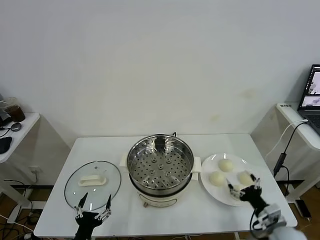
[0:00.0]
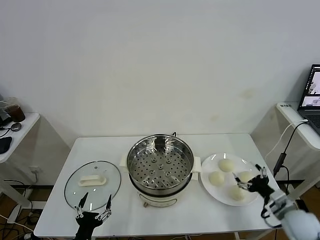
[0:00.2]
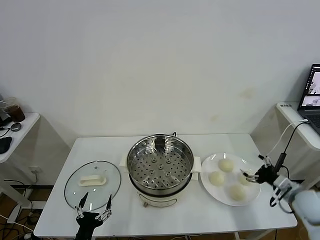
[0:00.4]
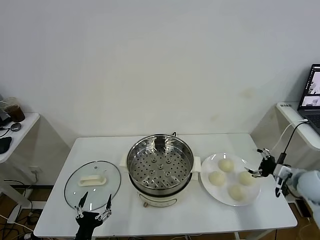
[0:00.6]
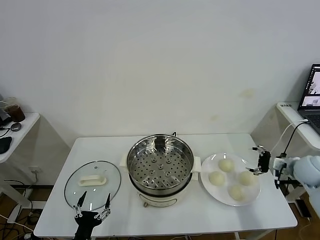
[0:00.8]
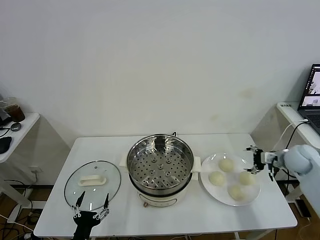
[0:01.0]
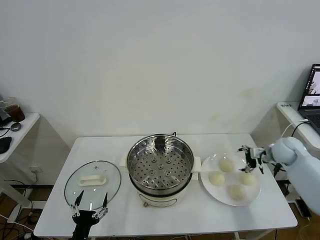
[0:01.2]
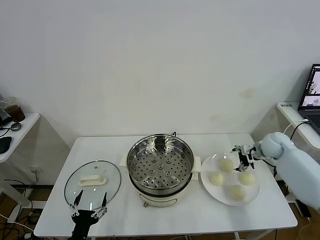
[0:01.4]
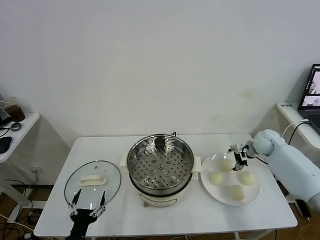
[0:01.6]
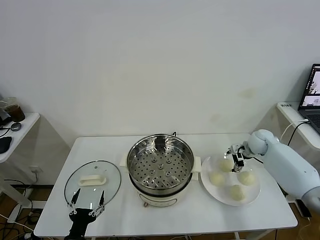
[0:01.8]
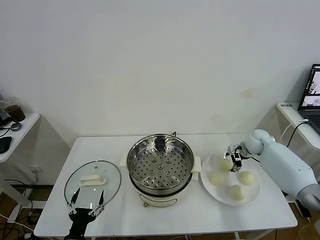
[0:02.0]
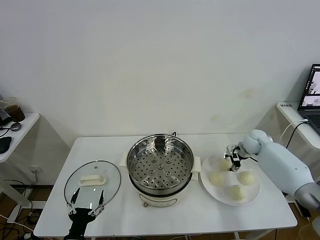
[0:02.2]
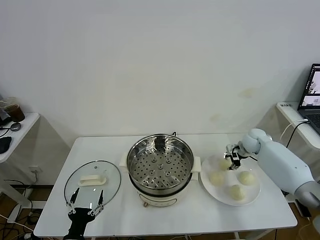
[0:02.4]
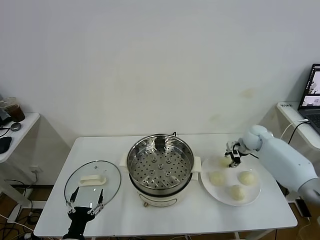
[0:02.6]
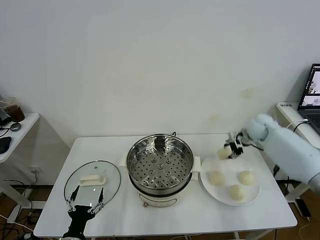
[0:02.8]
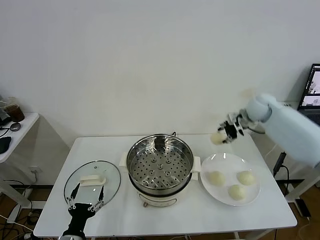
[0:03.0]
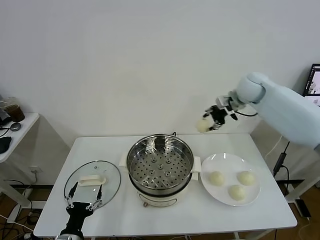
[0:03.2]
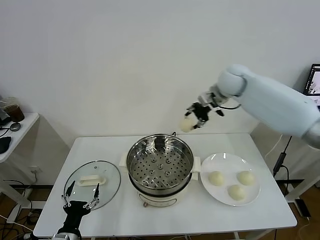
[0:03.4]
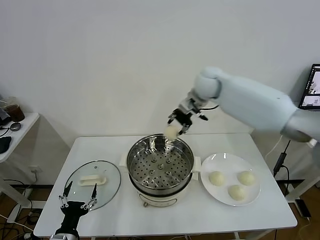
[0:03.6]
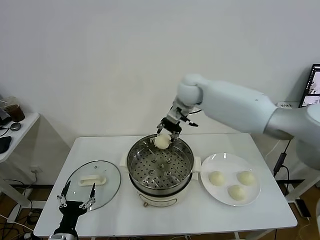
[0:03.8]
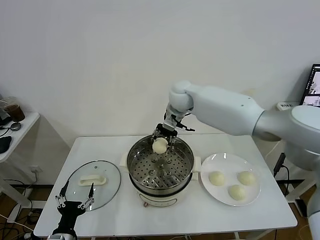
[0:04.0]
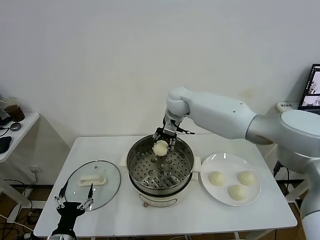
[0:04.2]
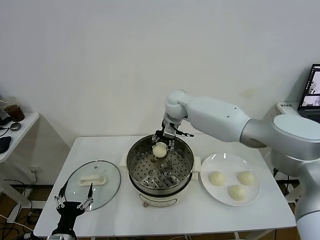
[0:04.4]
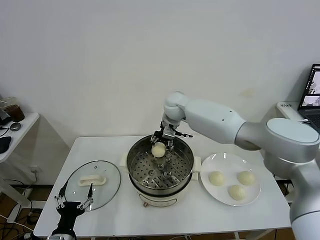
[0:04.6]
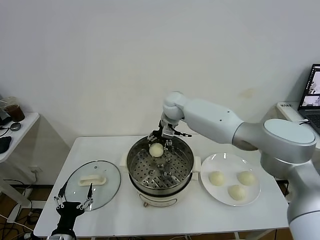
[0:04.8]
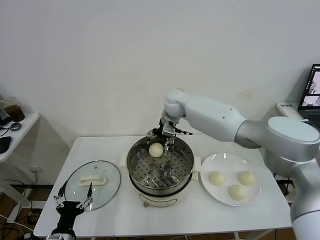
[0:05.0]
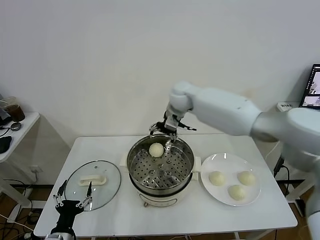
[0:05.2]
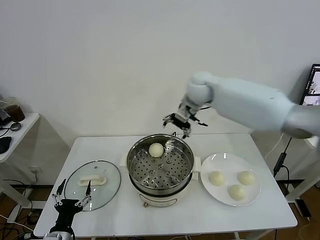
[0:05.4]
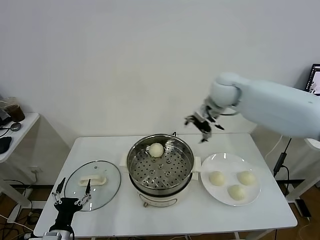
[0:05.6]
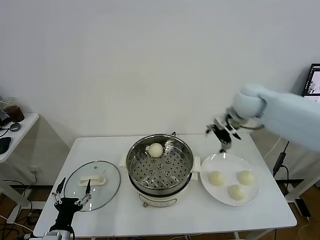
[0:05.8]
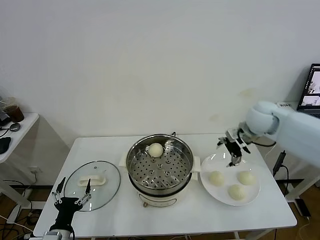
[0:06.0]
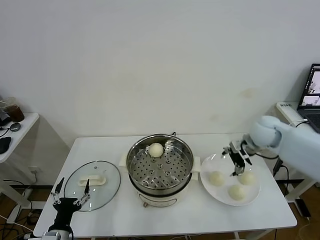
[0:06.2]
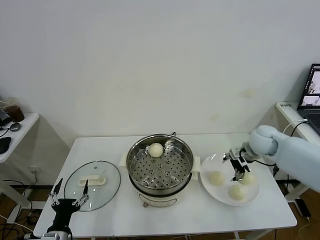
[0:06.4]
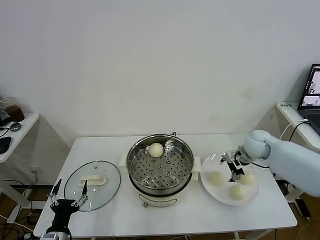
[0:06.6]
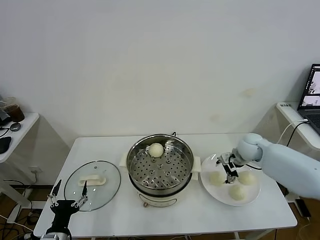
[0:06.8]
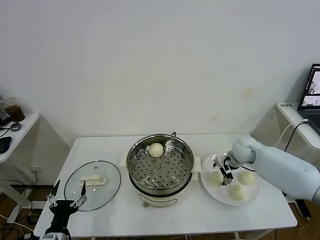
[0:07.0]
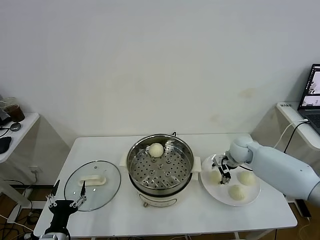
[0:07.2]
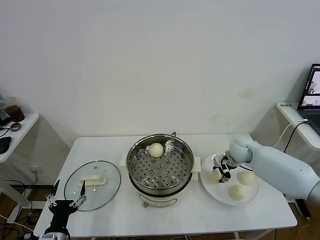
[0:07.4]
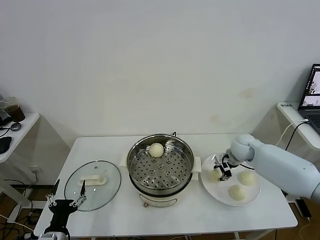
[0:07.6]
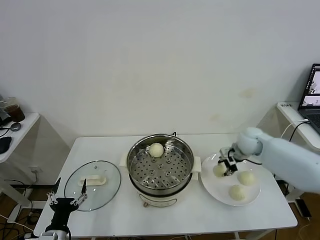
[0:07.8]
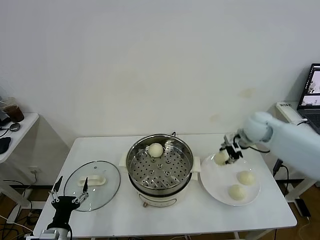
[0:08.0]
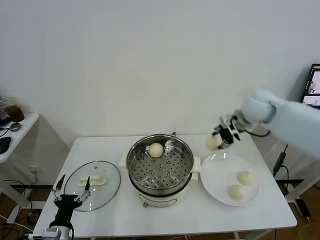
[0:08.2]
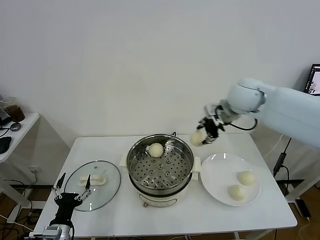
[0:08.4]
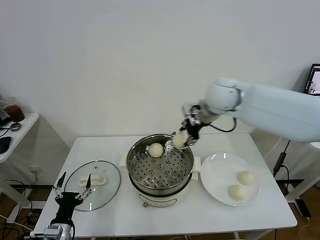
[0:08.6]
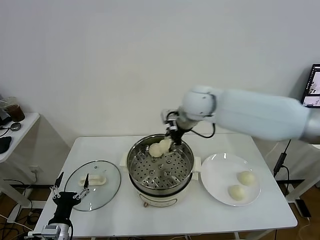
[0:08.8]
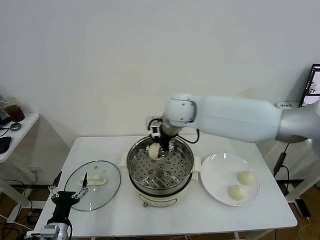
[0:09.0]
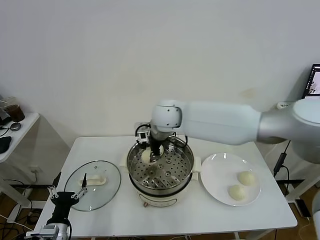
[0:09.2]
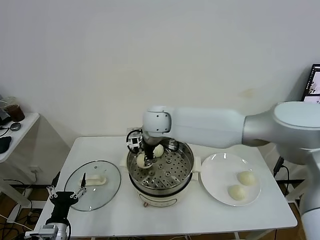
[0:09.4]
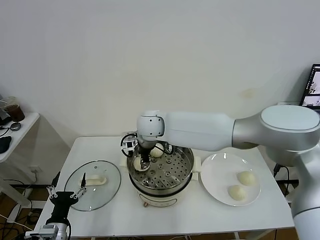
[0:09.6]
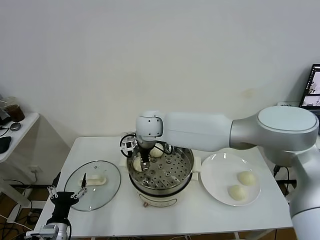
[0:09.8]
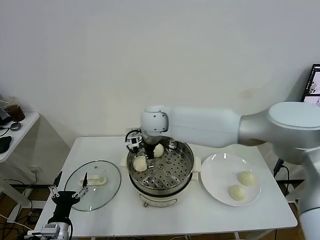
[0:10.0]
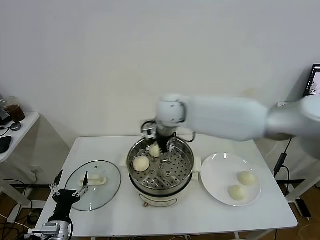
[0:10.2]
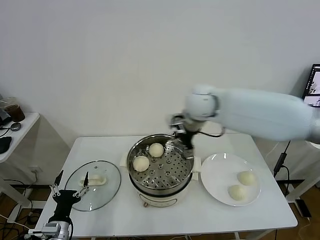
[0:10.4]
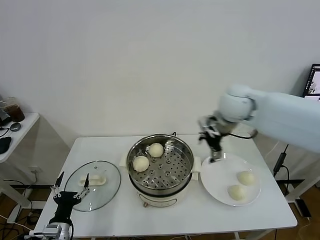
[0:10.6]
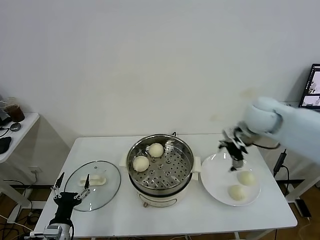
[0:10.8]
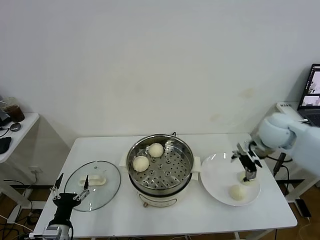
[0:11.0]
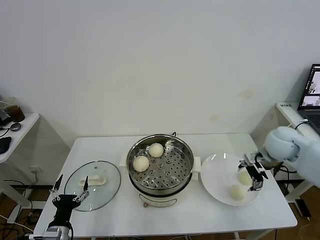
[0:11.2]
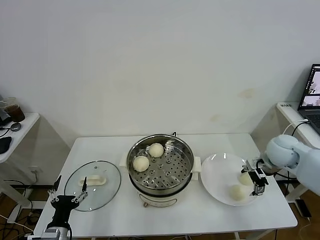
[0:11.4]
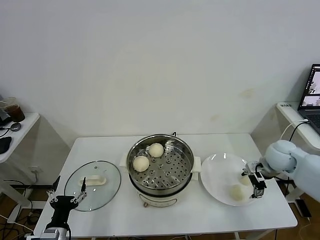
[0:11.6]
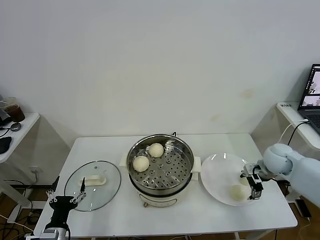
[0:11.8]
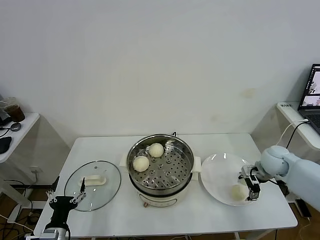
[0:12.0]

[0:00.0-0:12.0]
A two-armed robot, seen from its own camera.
Task of the whole recording: take steamed baozi put them in steamer.
Step, 0.0 to 2.4 s: Grasp the baozi in the plate with right gripper.
Step, 2.6 to 5.0 s: Place the baozi on the steamer with right gripper.
Step, 5.2 to 7.4 s: Grasp the baozi in the plate with right gripper.
Step, 7.6 to 9.8 s: Place the baozi on the steamer with right gripper.
1.6 to 3.0 s: The right gripper moves upward and to the left, approximately 20 cm, and closes up.
3.0 to 4.4 s: The right gripper shifts about 25 cm to the left.
4.4 to 6.0 s: The right gripper goes about 30 cm to the right, and opens its fingers.
6.0 to 7.6 s: The right gripper travels downward by some 10 cm, and closes its fingers.
7.6 to 9.0 s: The right gripper goes approximately 30 cm to the left and upward.
9.0 to 10.4 s: The right gripper travels to the right by about 15 cm, and opens.
10.4 to 12.0 s: The right gripper goes some 30 cm to the right and downward.

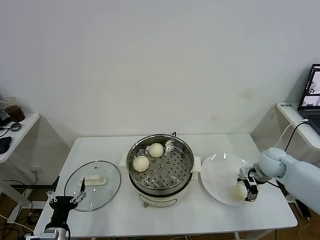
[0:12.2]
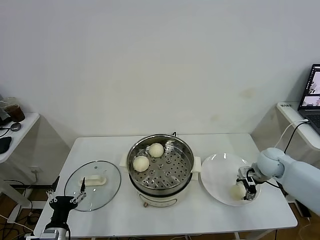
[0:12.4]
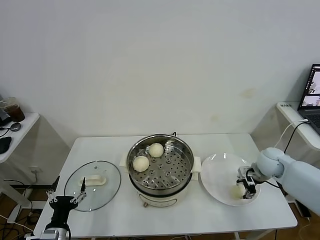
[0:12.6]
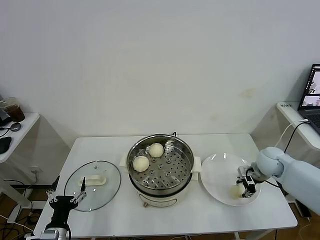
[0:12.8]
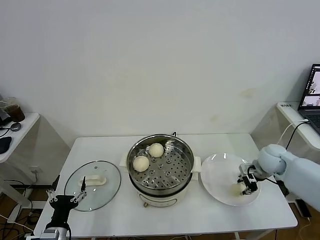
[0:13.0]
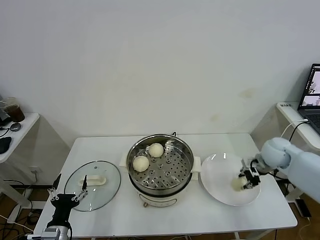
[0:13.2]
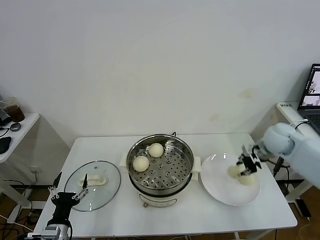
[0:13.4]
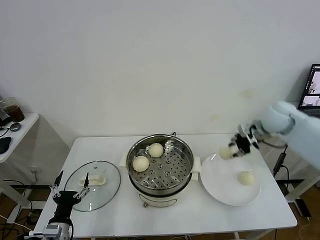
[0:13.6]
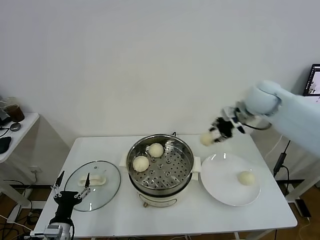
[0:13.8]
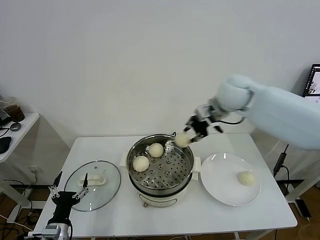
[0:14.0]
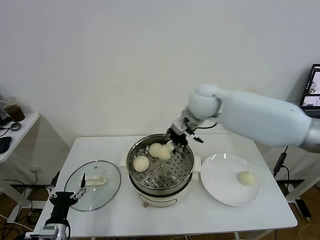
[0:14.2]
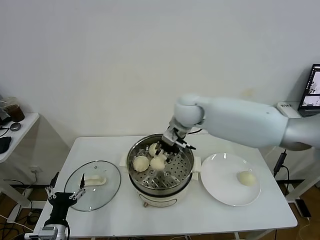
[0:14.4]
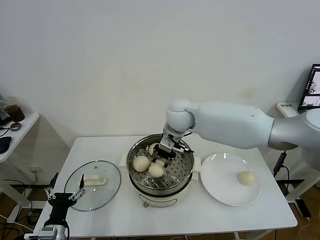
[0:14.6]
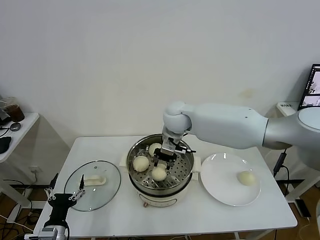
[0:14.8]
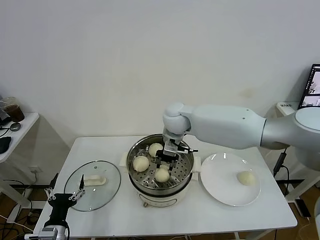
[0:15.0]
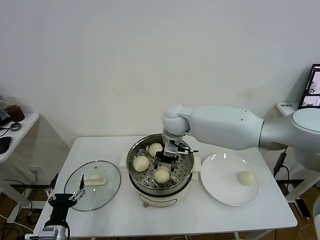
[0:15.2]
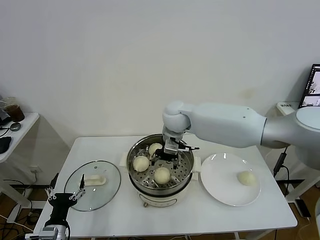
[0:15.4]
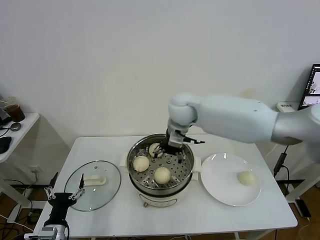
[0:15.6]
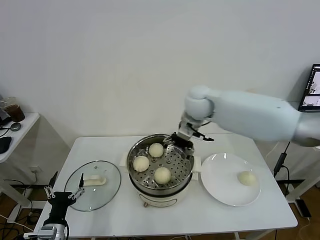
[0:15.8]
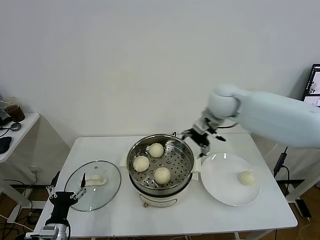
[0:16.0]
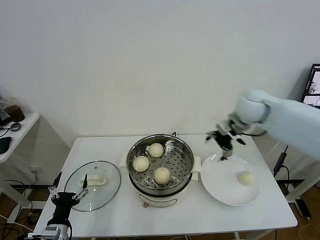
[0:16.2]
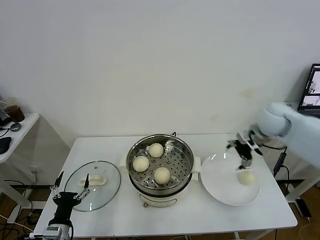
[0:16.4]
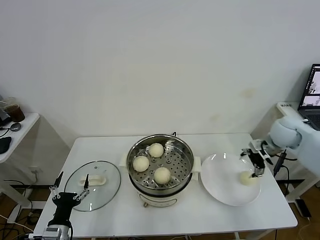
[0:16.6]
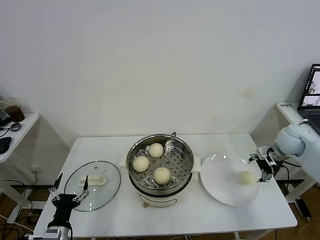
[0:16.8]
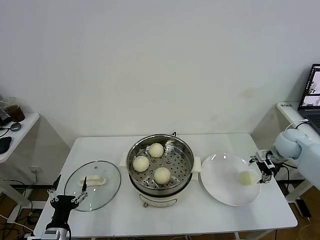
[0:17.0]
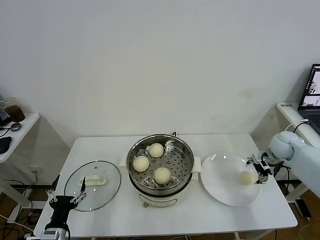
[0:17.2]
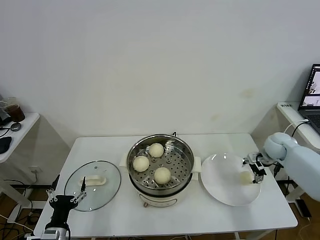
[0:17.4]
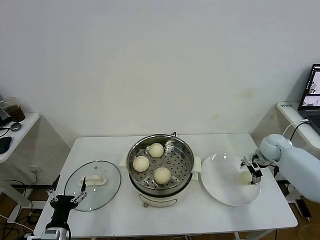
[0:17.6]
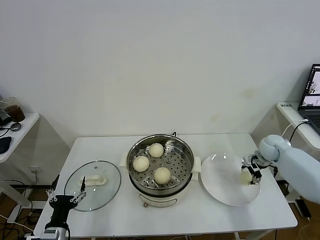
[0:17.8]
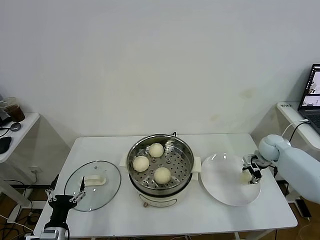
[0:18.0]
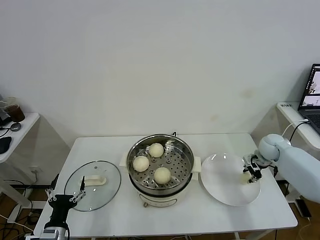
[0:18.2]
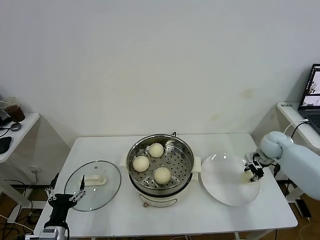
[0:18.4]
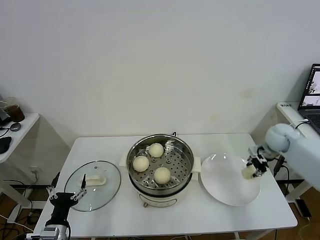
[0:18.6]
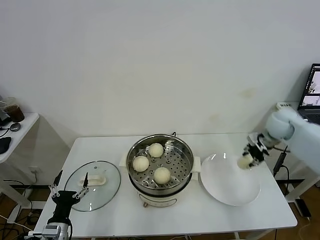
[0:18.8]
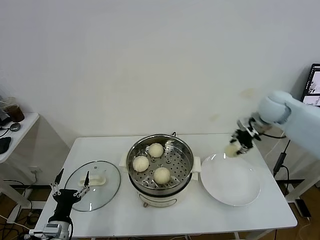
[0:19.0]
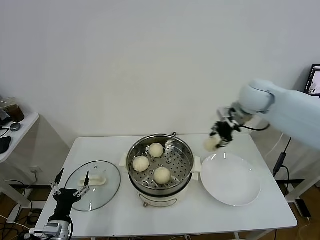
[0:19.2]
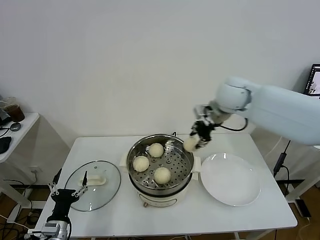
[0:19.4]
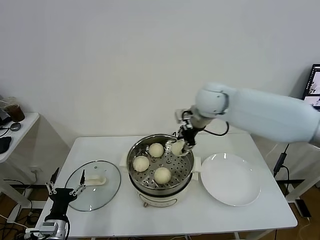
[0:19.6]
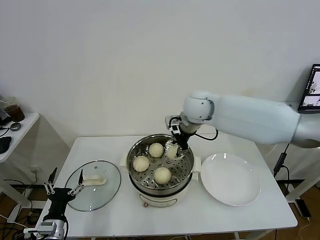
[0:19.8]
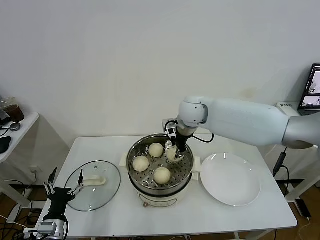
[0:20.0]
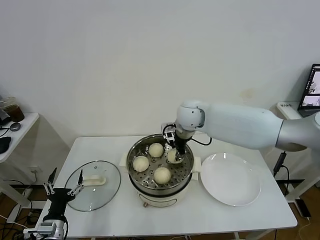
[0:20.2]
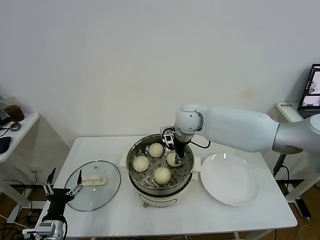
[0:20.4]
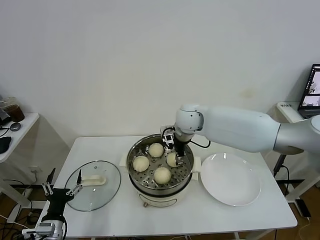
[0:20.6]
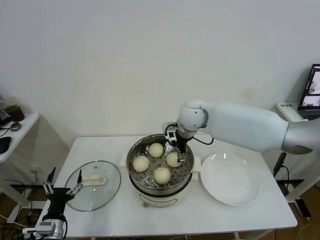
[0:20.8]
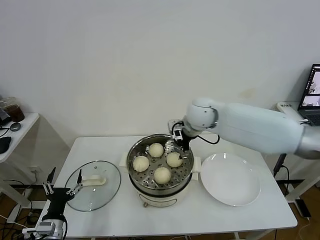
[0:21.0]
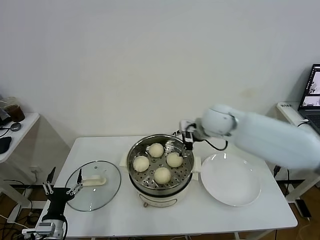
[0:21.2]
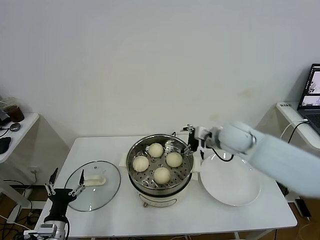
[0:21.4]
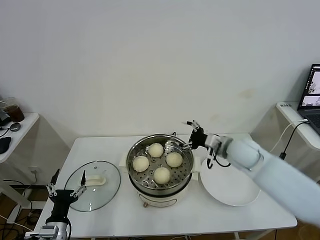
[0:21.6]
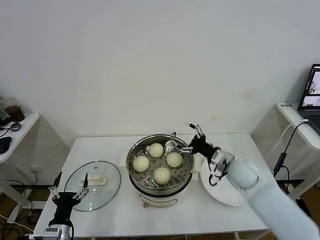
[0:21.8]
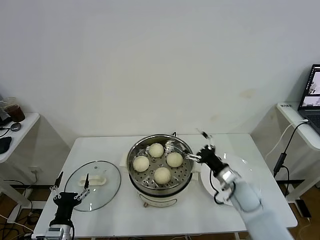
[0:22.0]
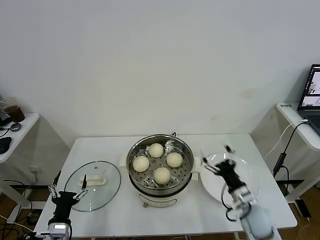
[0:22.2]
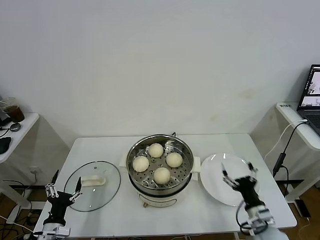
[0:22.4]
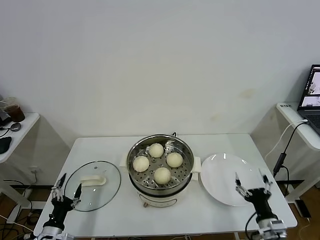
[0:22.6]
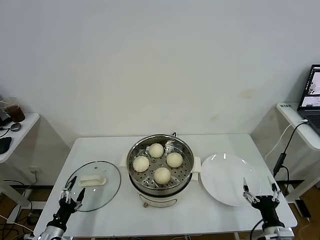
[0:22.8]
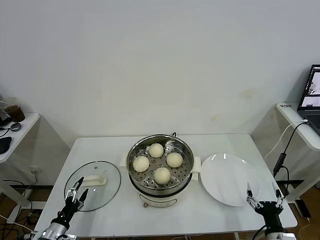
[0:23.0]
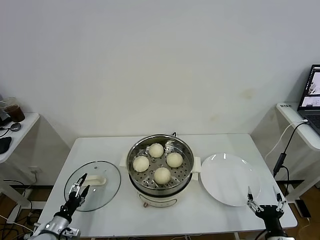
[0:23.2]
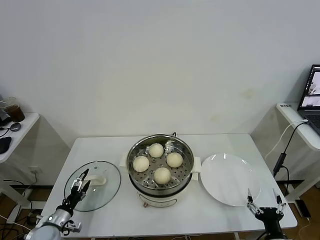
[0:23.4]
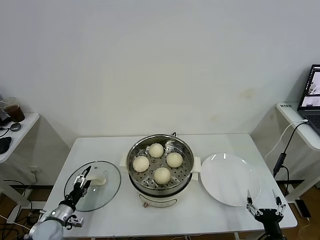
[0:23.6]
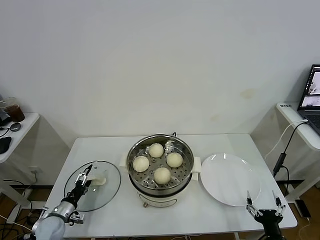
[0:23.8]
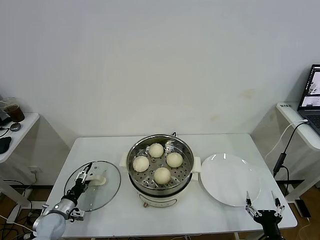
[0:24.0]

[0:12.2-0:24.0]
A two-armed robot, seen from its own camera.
Task of the whole recording: take steamed baozi put them in steamer.
Step, 12.8 to 15.4 s: Place the baozi on the steamer with right gripper.
Step, 15.6 to 18.2 s: Grasp the baozi in the plate with right gripper.
Step, 18.4 to 21.0 s: Place the baozi on the steamer with right gripper.
12.2 to 13.6 s: The right gripper shifts about 20 cm upward, and closes its fingers.
13.6 to 15.2 s: The right gripper goes about 30 cm to the left, and opens.
15.2 to 16.6 s: The right gripper heads to the right, covering about 35 cm, and opens.
16.6 to 18.2 s: The right gripper moves downward, roughly 10 cm, and closes its fingers.
18.2 to 19.6 s: The right gripper moves to the left and upward, approximately 35 cm.
19.6 to 21.0 s: The right gripper opens.
21.0 to 22.6 s: The right gripper shifts approximately 50 cm backward, downward and to the right, while the left gripper ends up about 5 cm from where it was.
22.6 to 24.0 s: The right gripper moves backward, about 5 cm. Meanwhile the left gripper goes approximately 10 cm forward.
